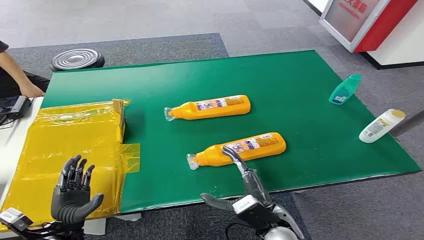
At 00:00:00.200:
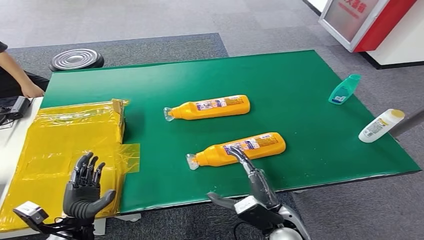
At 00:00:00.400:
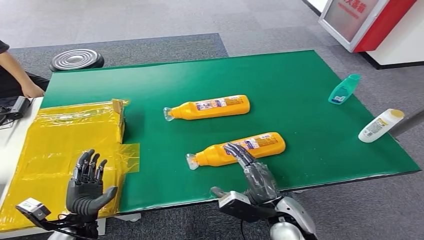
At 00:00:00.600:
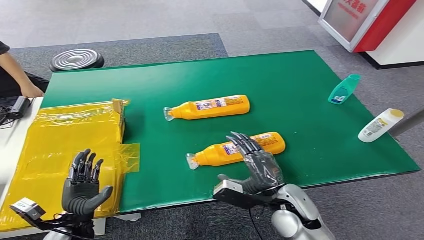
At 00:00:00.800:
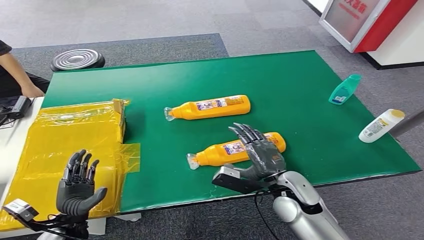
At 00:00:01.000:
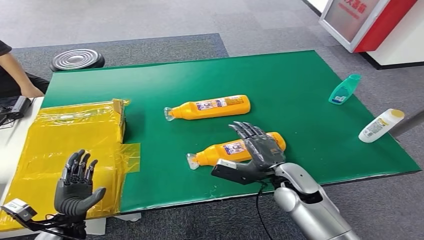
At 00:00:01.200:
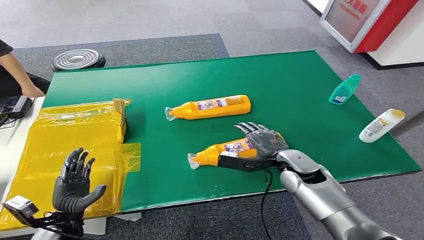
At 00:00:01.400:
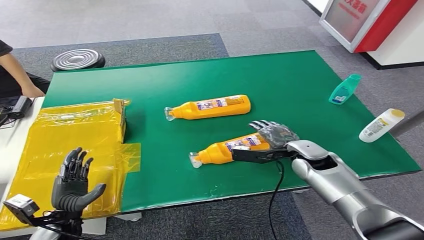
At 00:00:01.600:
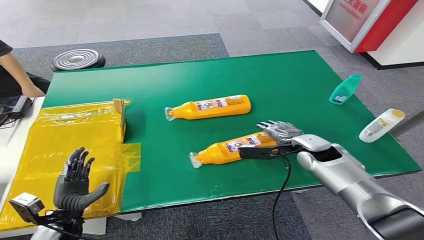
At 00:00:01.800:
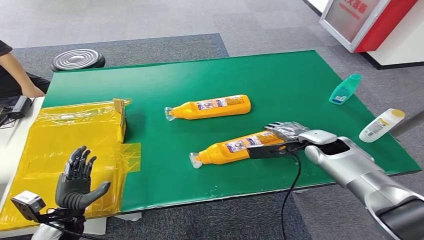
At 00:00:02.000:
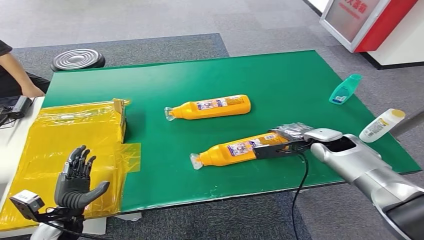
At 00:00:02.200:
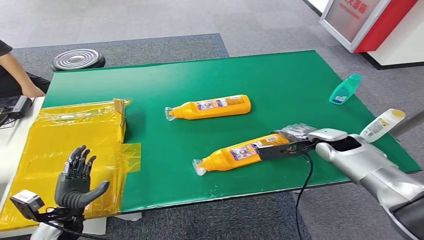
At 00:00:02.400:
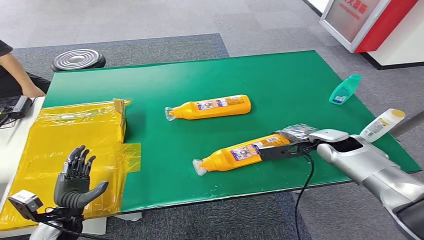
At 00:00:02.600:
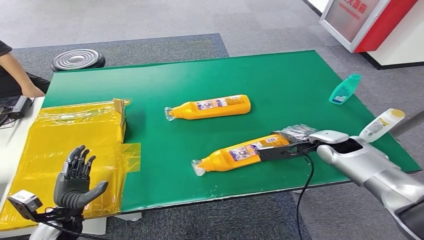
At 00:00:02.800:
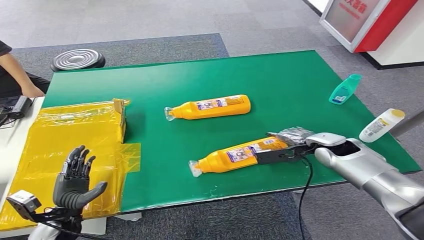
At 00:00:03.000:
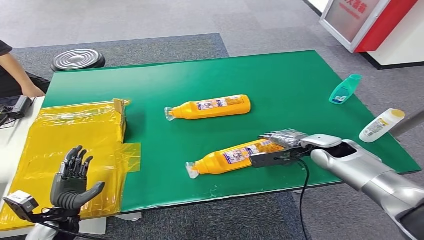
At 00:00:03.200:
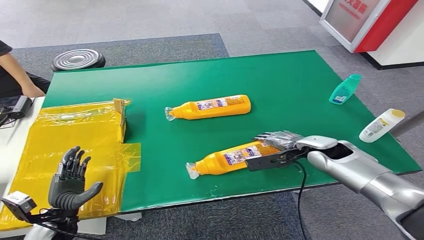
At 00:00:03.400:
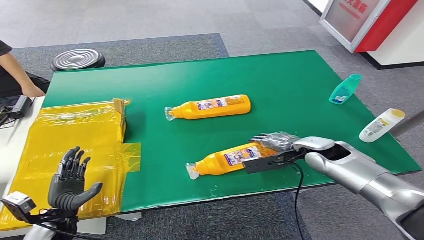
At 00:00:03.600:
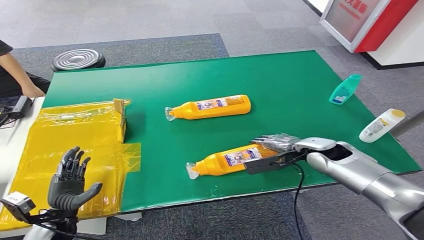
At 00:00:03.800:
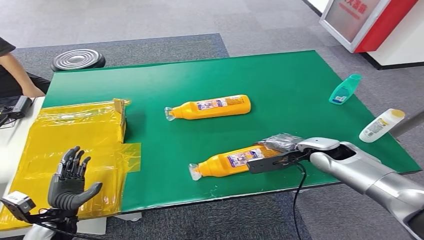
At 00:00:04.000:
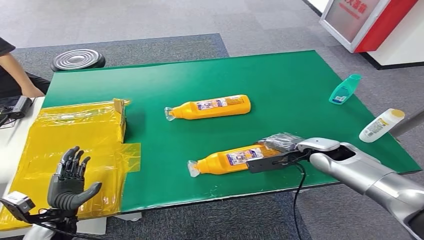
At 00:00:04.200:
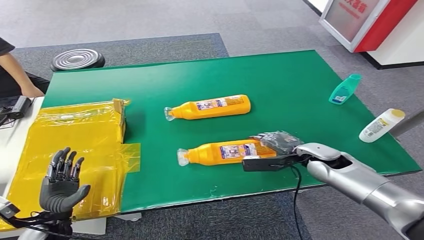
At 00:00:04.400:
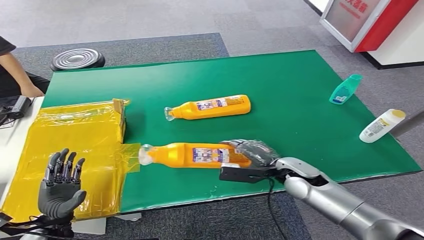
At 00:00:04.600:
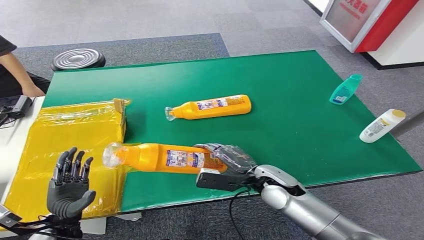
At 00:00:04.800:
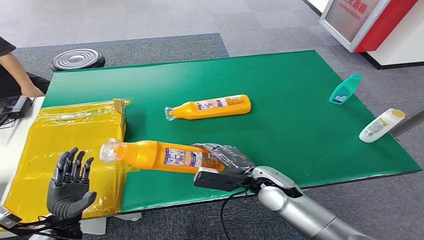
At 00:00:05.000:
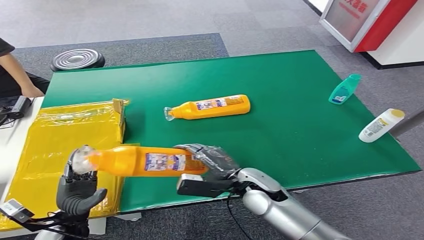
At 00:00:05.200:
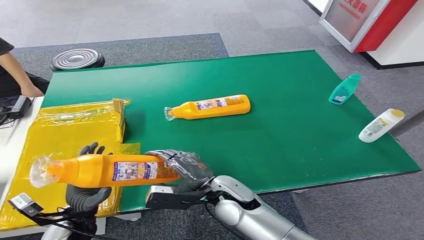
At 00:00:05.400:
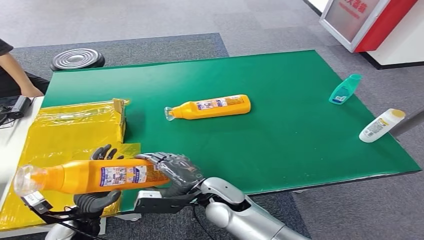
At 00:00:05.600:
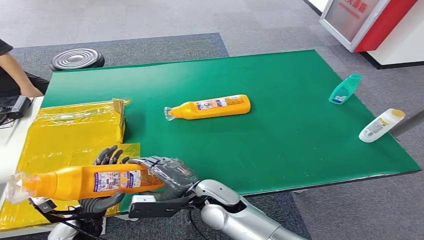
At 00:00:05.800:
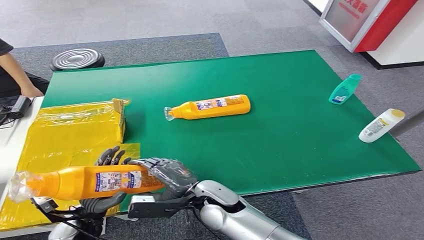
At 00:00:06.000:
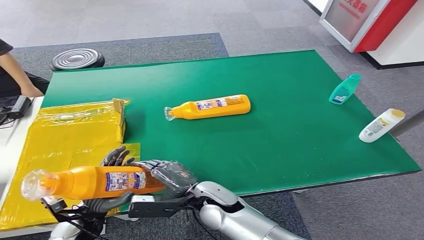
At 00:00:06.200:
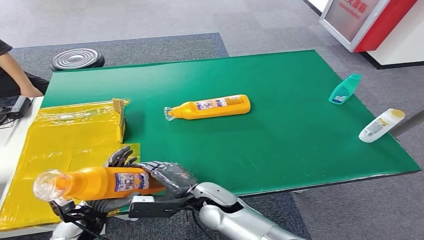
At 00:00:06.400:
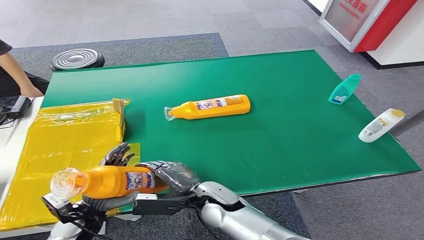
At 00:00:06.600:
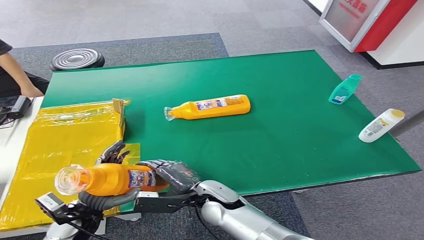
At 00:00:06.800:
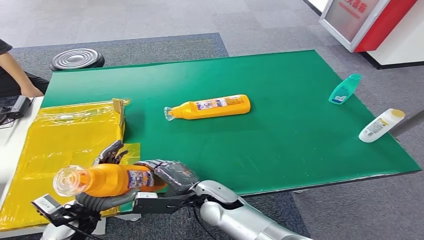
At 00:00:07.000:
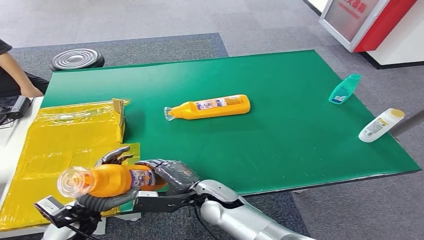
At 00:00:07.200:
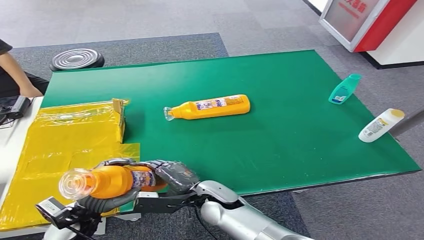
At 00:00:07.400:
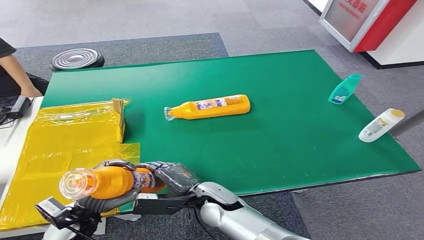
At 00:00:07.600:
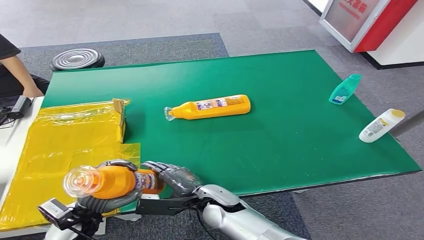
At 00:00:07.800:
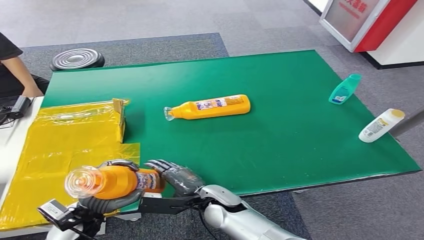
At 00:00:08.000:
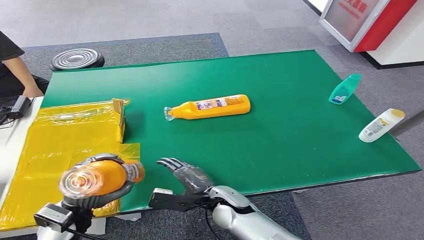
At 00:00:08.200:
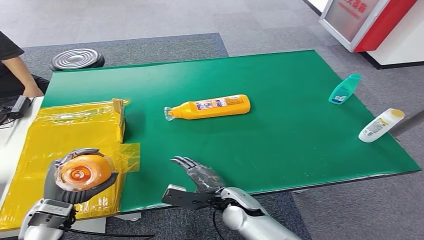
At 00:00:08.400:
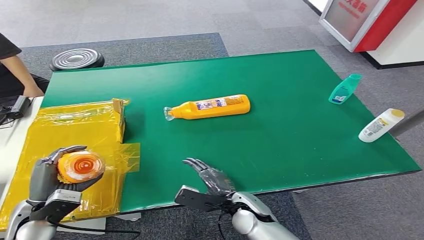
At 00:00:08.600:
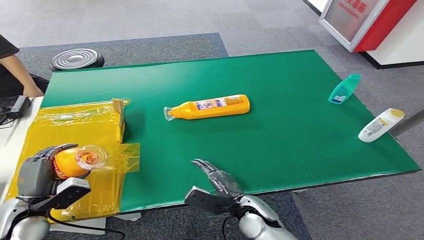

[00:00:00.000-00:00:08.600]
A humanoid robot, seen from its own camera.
Step, 00:00:00.000 to 00:00:04.400: Pick up the bottle from the table.
Step, 00:00:04.800 to 00:00:08.600: Turn the bottle to the front side.
00:00:01.400 to 00:00:02.800: The right hand moves to the right, roughly 5 cm.
00:00:02.800 to 00:00:04.400: The right hand heads to the left and backward, covering some 10 cm.
00:00:04.400 to 00:00:05.800: The right hand travels to the left by some 20 cm. The left hand shifts about 5 cm to the right.
00:00:07.200 to 00:00:08.600: The left hand is displaced to the left by about 10 cm, while the right hand goes approximately 10 cm to the right.

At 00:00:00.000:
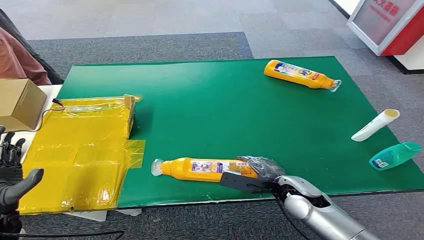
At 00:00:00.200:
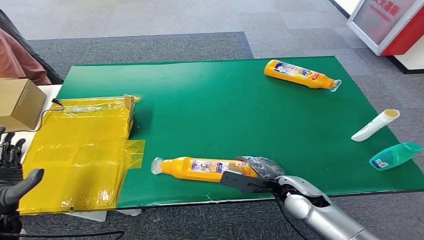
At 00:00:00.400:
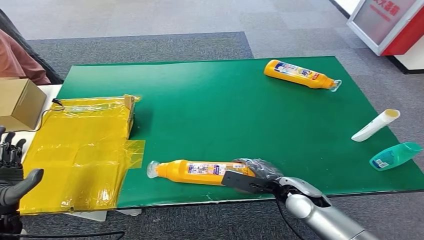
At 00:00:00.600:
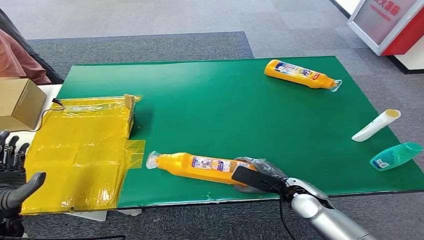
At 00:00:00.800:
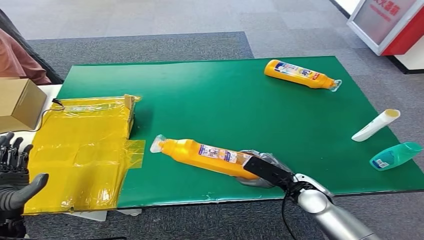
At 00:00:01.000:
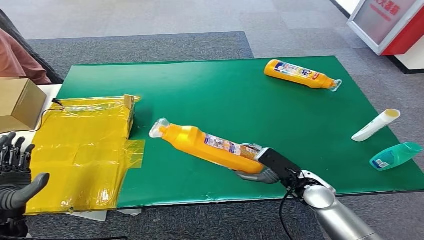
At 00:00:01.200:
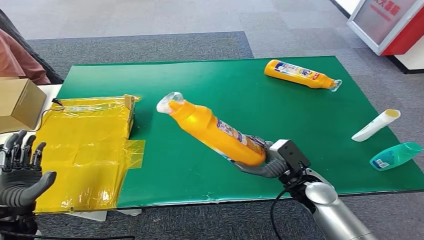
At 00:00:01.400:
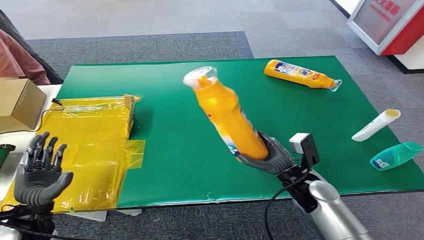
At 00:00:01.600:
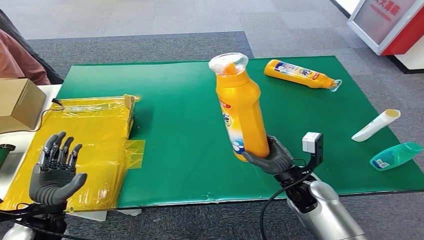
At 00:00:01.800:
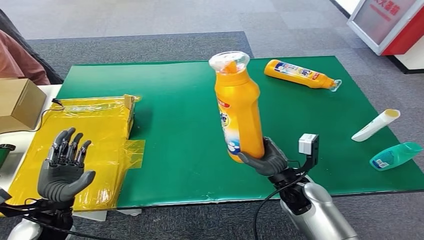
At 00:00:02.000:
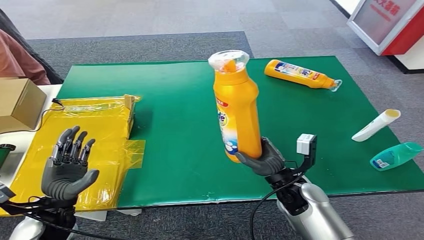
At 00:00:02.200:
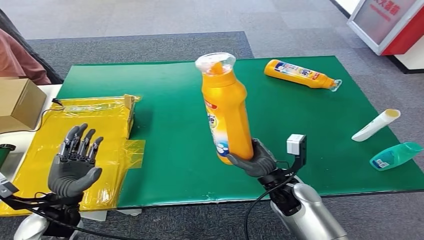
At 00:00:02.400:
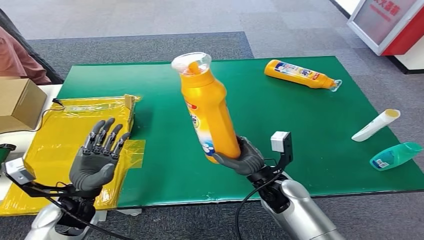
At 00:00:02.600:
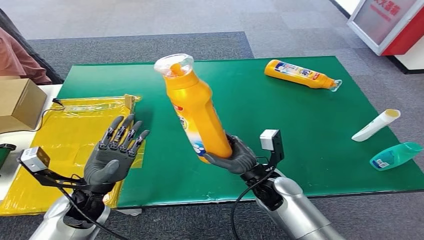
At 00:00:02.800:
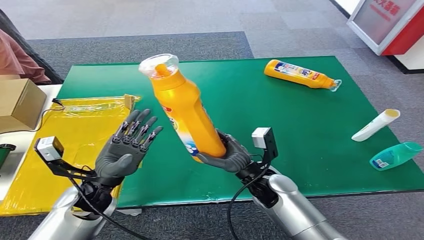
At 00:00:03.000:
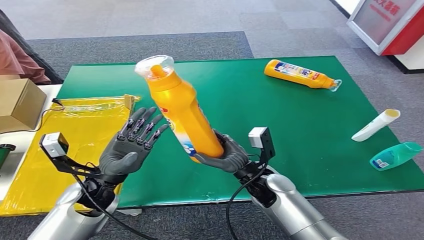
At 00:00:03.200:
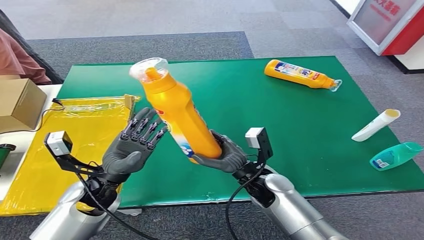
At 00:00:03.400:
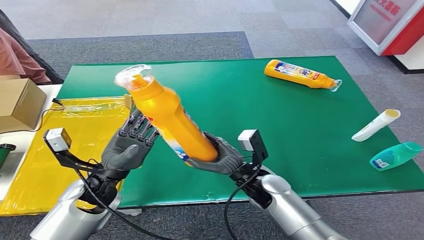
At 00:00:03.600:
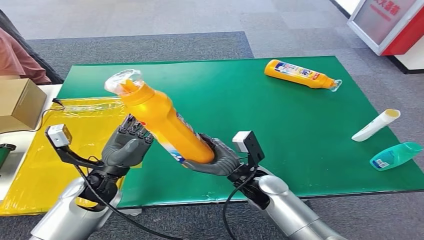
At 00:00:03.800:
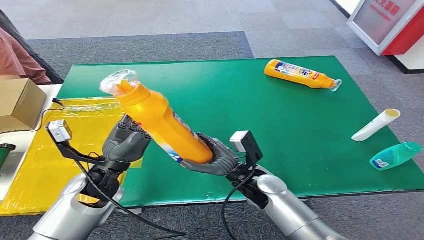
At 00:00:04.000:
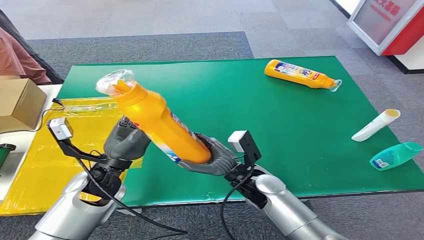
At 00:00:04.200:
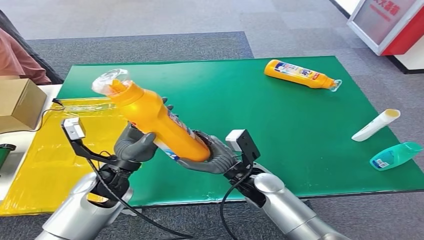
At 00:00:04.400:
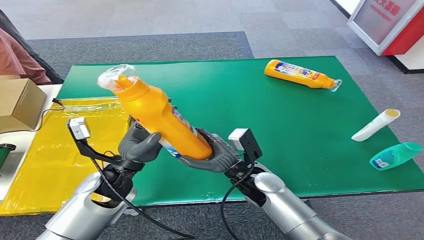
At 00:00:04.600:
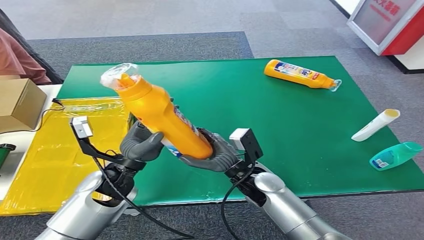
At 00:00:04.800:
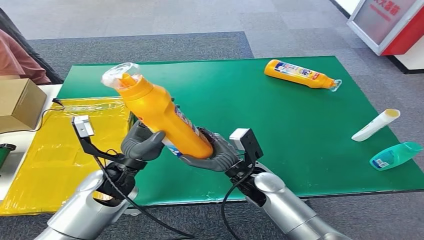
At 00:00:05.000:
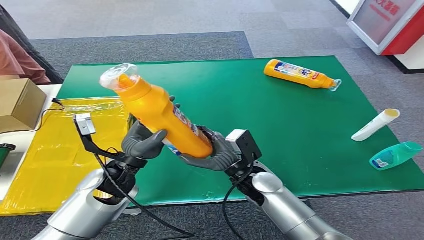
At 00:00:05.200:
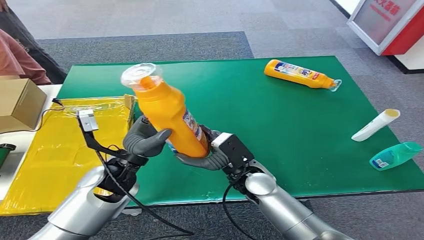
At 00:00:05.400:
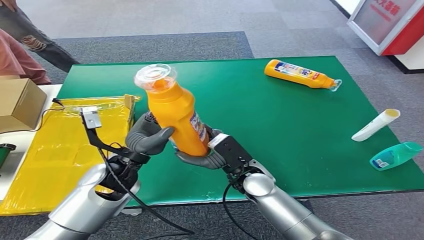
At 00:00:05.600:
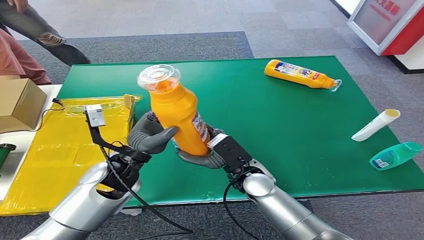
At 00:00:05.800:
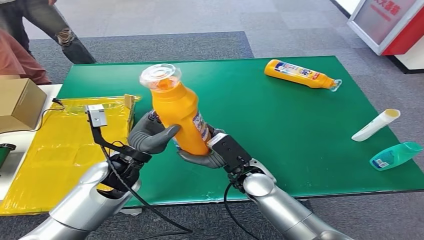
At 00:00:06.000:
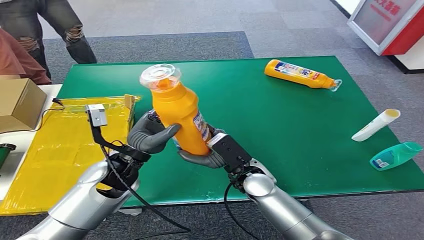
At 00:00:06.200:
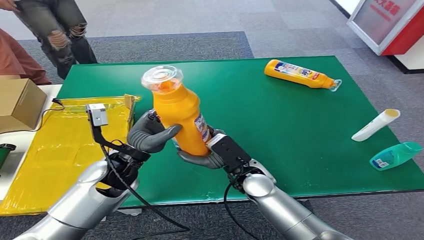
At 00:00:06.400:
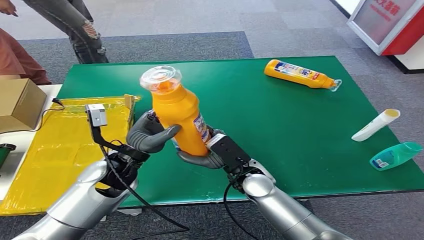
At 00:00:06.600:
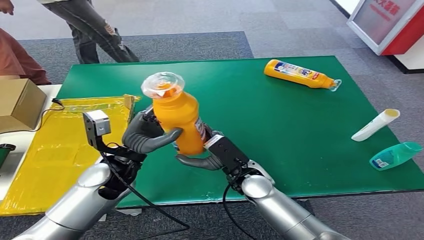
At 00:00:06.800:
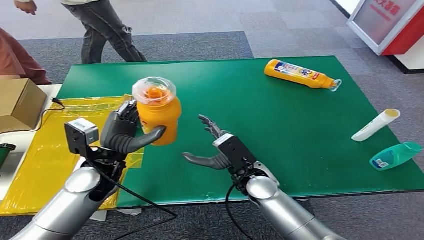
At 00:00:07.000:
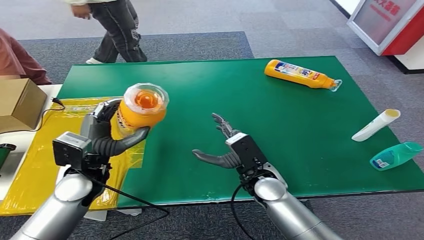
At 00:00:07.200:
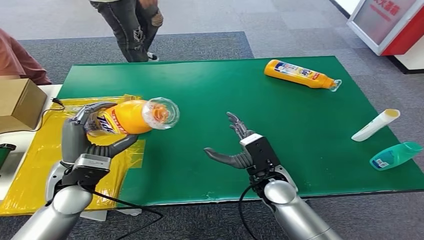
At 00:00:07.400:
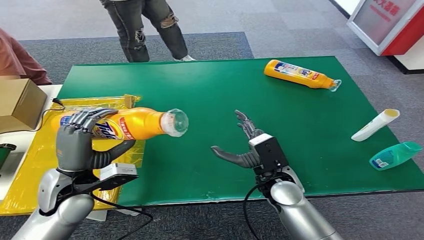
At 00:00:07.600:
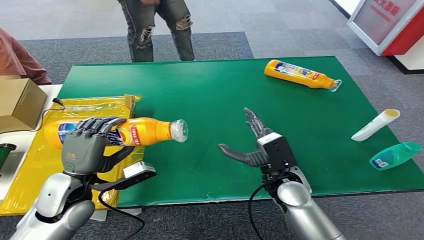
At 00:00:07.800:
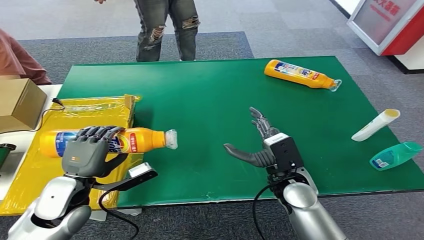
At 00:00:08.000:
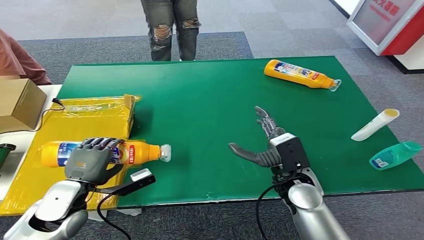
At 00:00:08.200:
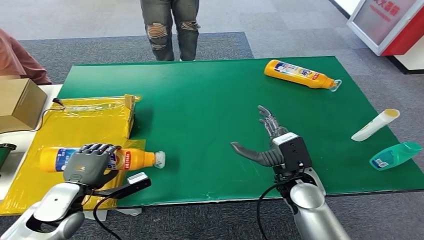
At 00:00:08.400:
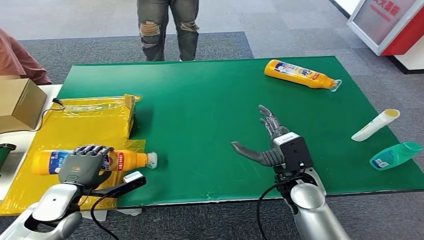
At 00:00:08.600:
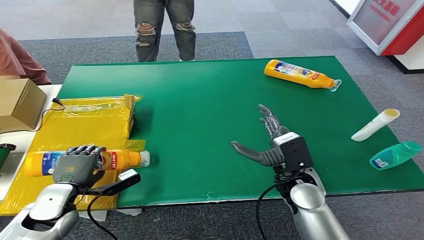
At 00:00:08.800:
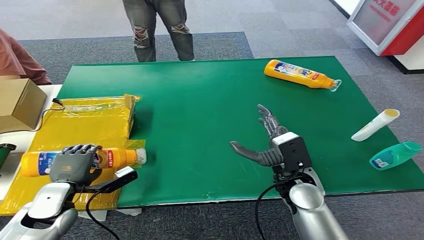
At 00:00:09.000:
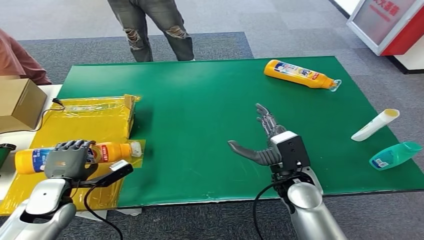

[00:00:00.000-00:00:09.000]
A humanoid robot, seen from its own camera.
Step, 00:00:00.000 to 00:00:01.600: Pick up the bottle from the table.
00:00:03.000 to 00:00:04.400: The hands move only a little.
00:00:07.600 to 00:00:09.000: The left hand moves to the left and downward, some 10 cm.
